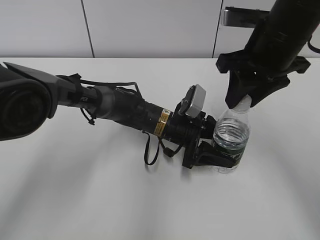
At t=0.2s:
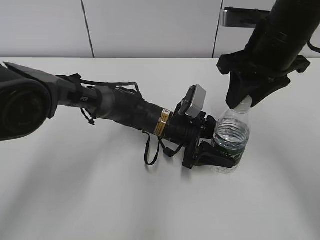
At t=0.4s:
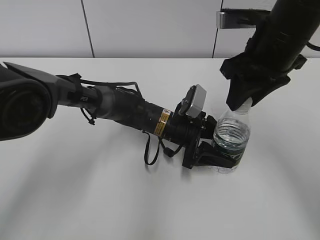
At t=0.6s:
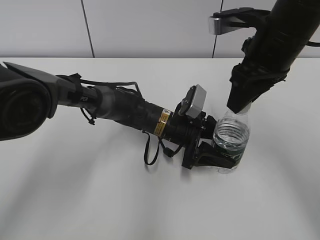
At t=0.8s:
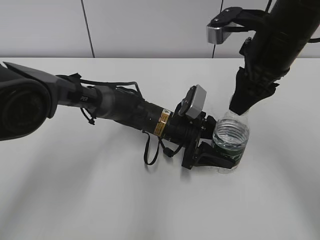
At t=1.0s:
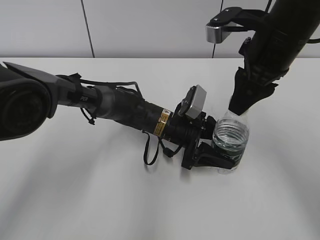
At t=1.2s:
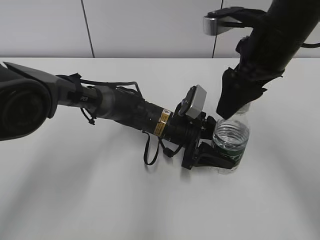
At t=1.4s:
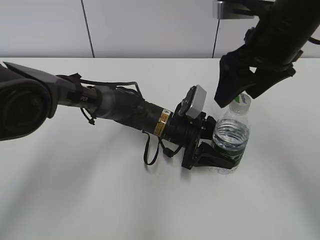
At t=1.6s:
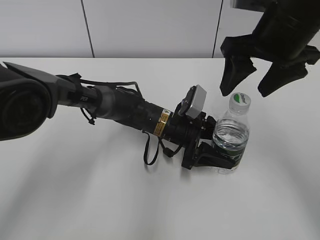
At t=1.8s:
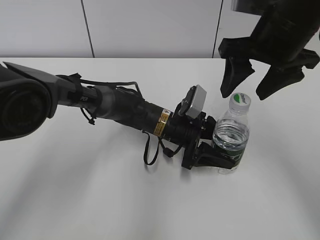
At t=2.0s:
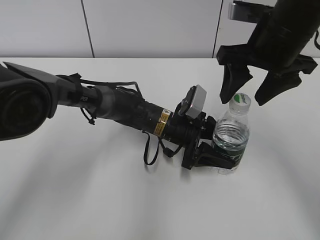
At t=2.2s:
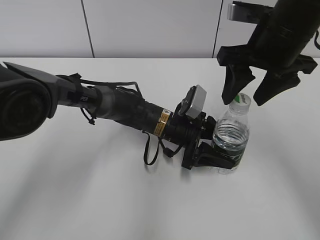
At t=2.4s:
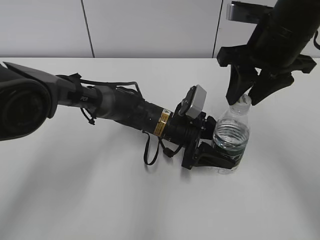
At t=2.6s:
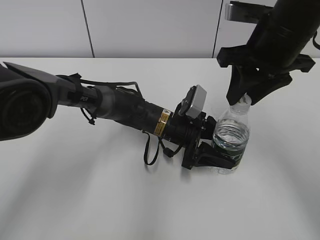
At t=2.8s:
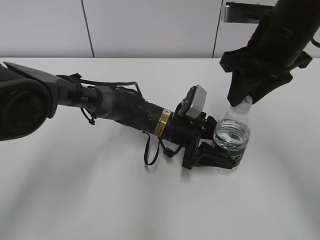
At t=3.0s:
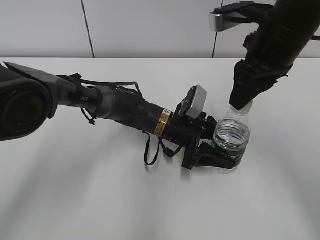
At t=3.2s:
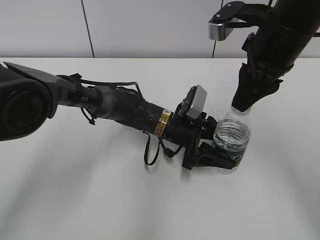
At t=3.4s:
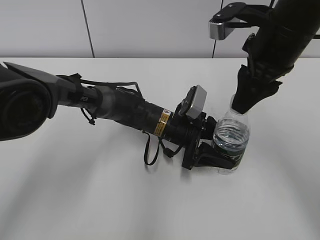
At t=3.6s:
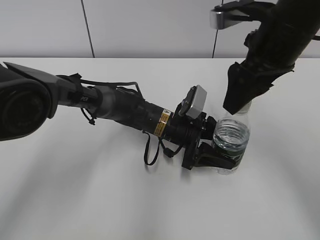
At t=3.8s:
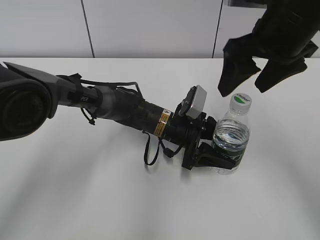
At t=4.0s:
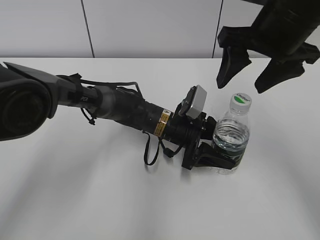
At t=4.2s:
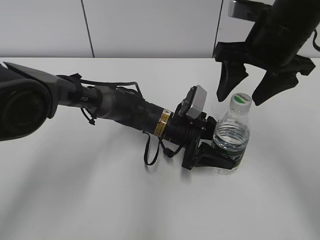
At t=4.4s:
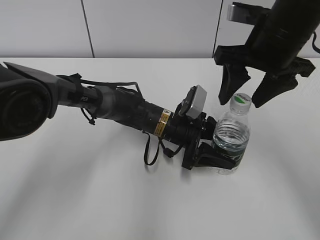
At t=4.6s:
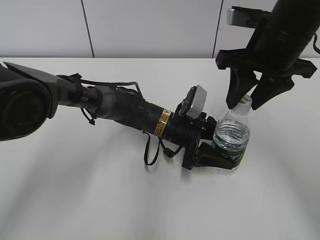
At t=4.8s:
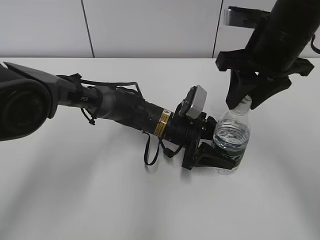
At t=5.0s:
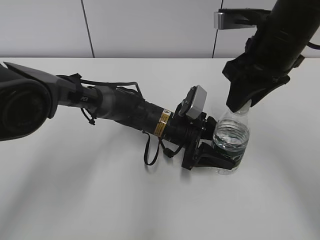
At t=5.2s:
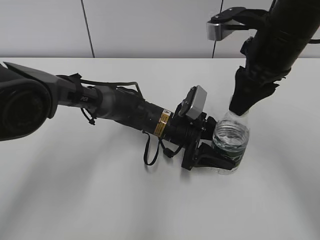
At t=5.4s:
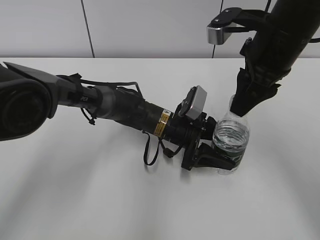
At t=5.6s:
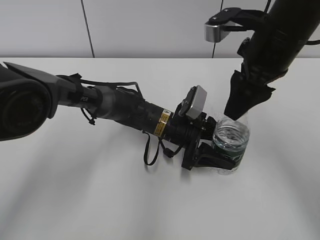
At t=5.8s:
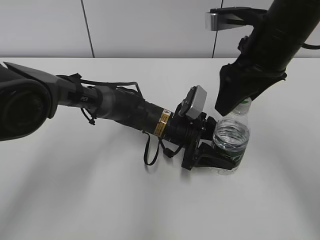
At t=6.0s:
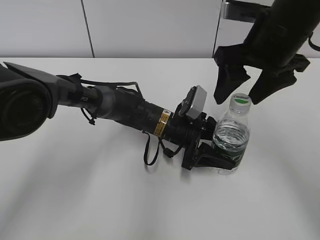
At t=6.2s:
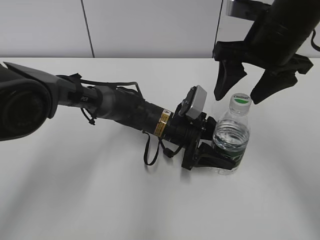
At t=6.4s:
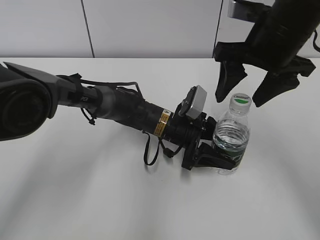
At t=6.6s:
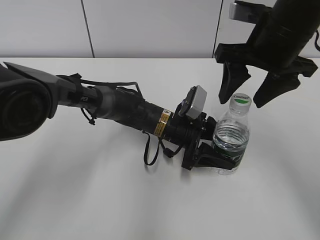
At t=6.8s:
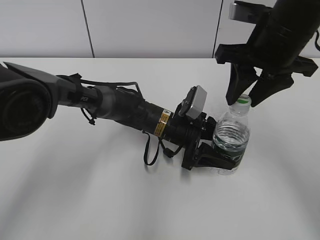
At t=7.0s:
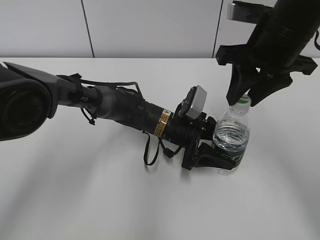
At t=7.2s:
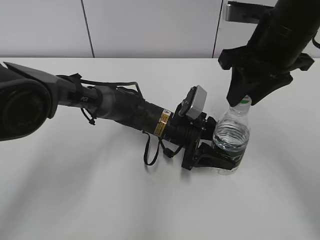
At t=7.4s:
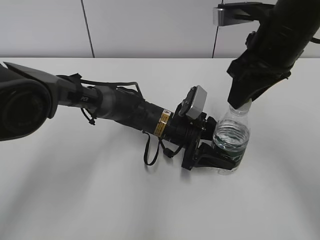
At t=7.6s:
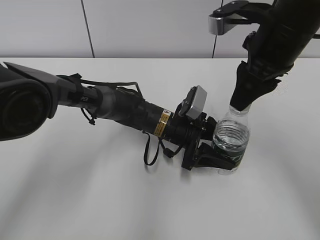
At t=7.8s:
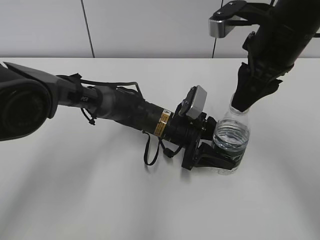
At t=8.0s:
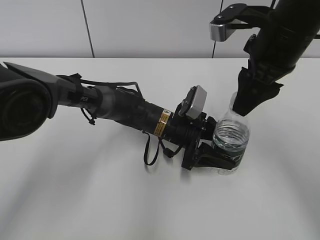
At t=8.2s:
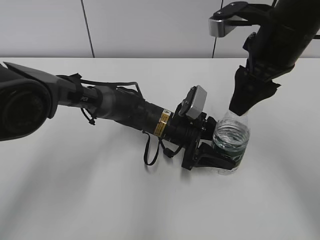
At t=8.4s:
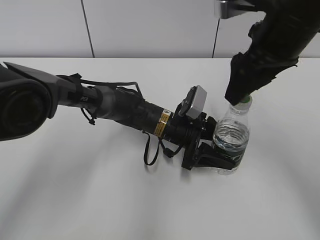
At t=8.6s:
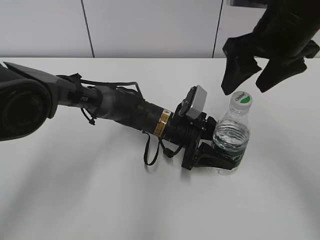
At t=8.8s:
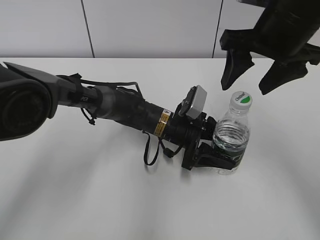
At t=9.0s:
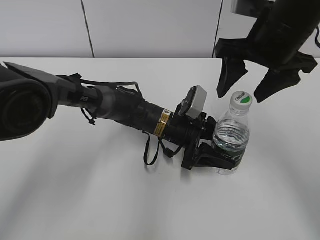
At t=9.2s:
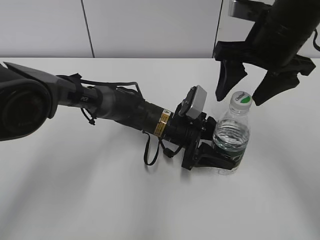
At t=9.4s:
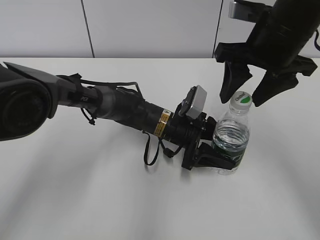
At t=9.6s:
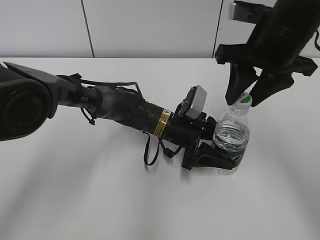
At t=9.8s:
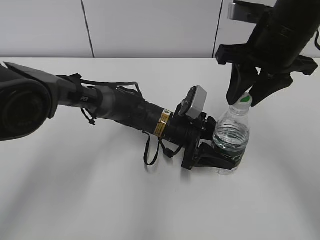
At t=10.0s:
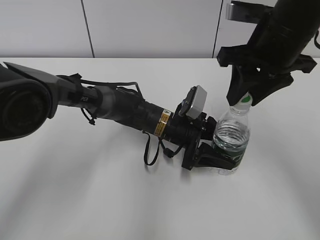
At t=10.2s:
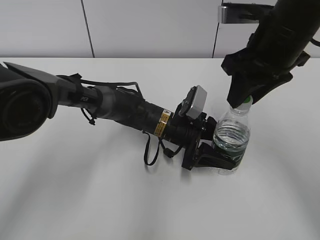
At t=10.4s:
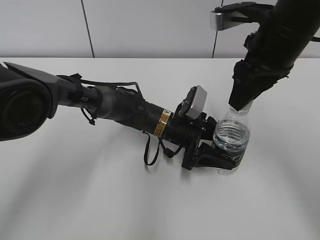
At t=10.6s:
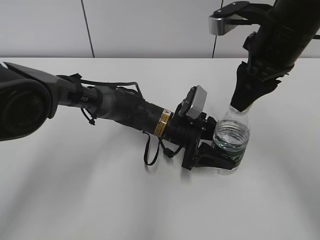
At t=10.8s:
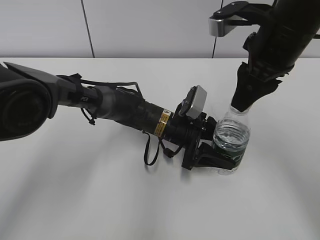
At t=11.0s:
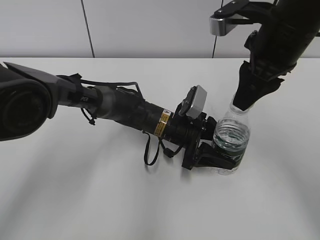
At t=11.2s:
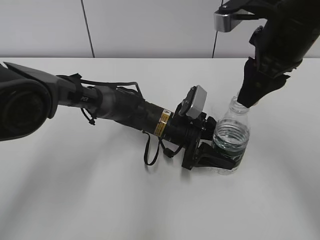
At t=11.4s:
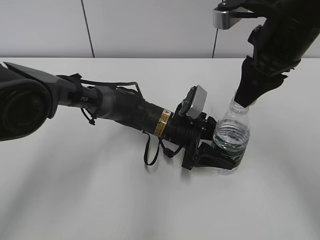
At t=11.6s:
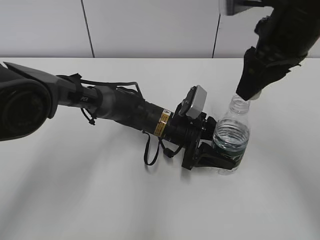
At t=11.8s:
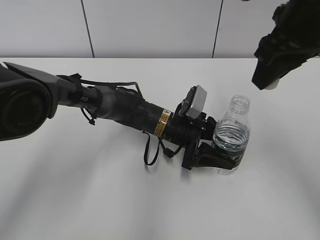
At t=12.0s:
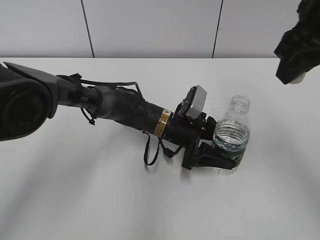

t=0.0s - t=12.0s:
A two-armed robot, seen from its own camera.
Step, t=0.0s - t=11.0s: Twist the bottle cap with the right hand.
t=0.0s - t=1.6s: The right gripper opens up.
t=1.6s - t=3.0s: The right gripper closes up.
t=3.0s - t=4.4s: The right gripper opens up.
t=4.4s - t=6.0s: The right gripper closes and opens again.
t=6.0s - t=7.6s: The right gripper closes its fingers.
t=7.6s - t=9.0s: The right gripper opens up.
t=9.0s - t=10.4s: The right gripper closes its fingers.
t=10.4s - t=12.0s: The right gripper moves upward, roughly 5 cm.

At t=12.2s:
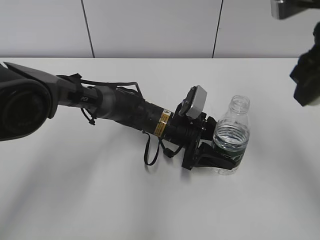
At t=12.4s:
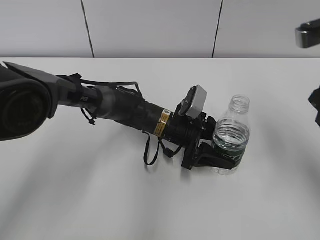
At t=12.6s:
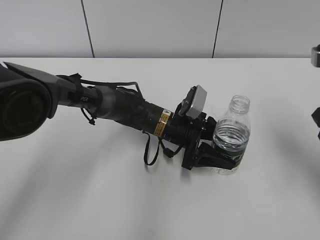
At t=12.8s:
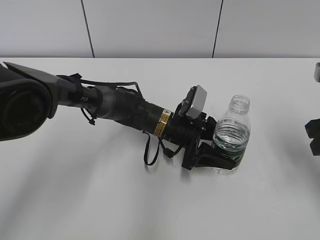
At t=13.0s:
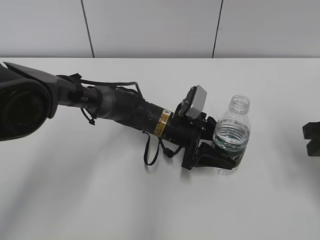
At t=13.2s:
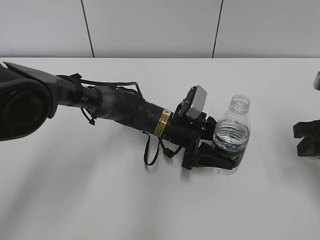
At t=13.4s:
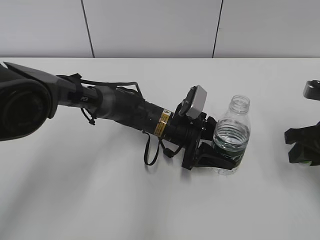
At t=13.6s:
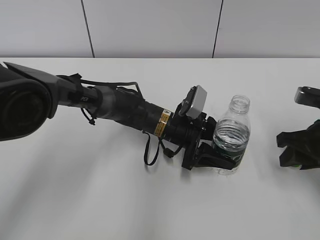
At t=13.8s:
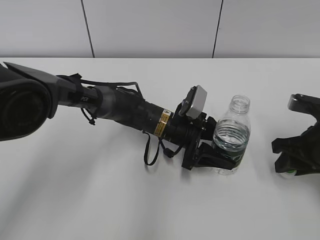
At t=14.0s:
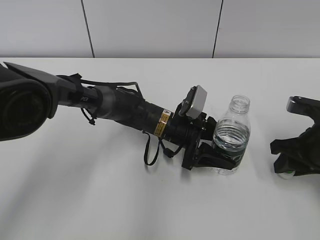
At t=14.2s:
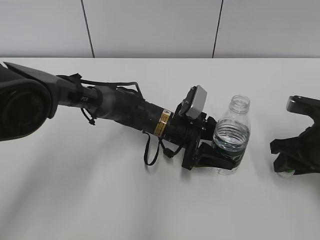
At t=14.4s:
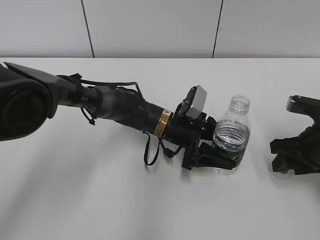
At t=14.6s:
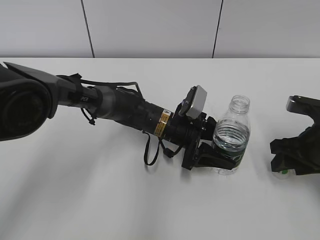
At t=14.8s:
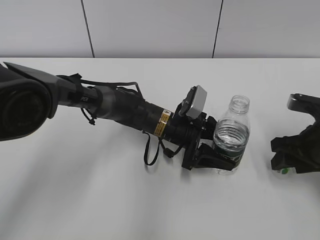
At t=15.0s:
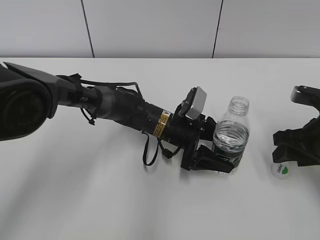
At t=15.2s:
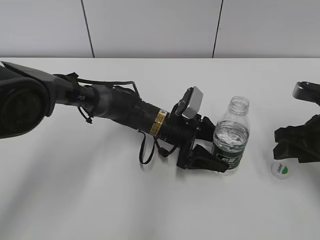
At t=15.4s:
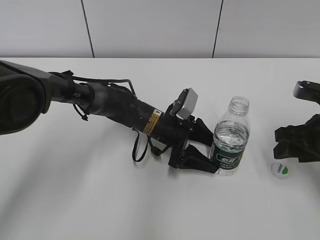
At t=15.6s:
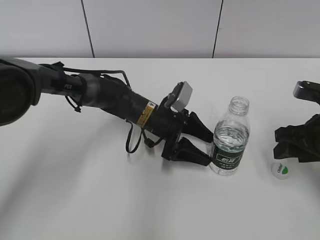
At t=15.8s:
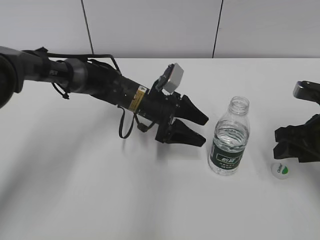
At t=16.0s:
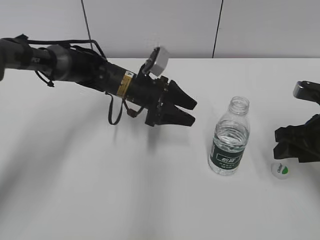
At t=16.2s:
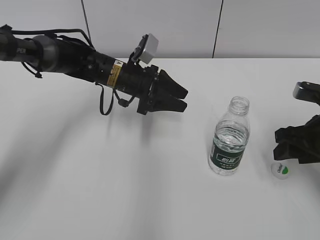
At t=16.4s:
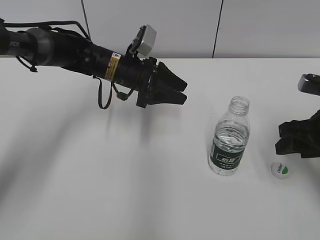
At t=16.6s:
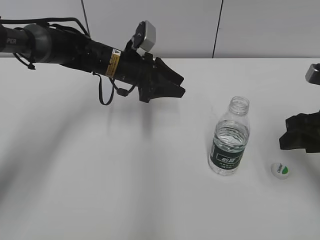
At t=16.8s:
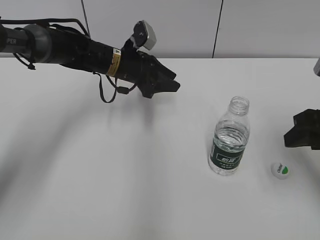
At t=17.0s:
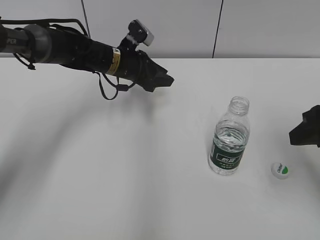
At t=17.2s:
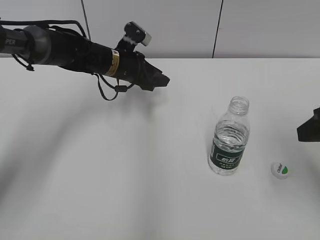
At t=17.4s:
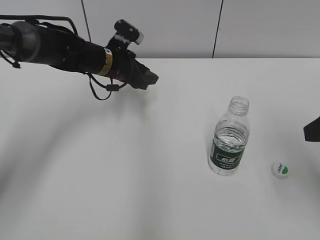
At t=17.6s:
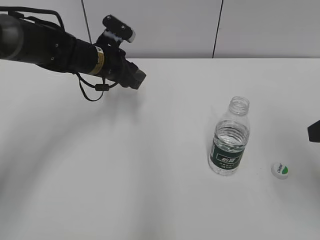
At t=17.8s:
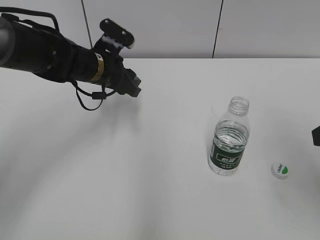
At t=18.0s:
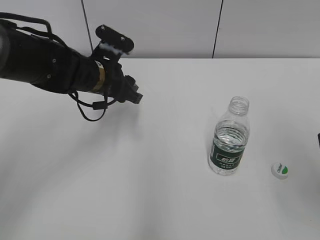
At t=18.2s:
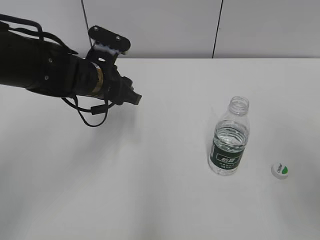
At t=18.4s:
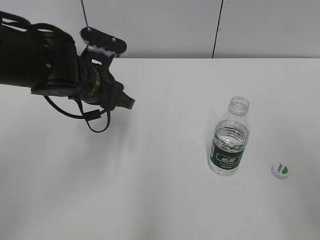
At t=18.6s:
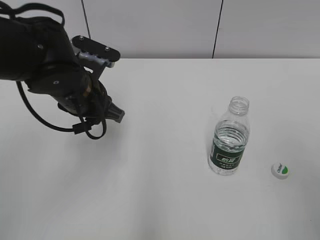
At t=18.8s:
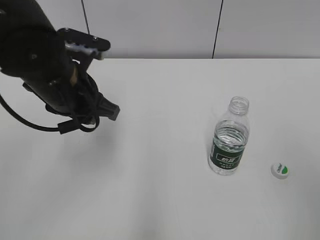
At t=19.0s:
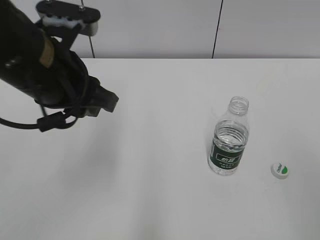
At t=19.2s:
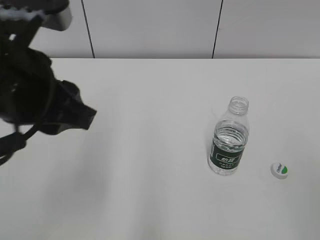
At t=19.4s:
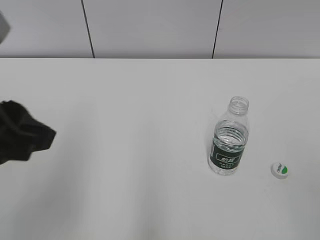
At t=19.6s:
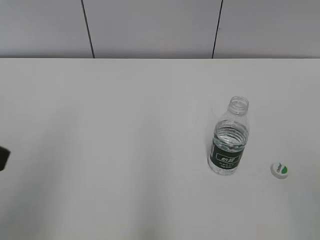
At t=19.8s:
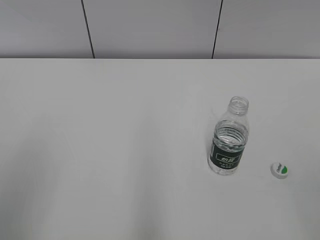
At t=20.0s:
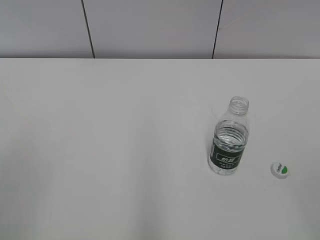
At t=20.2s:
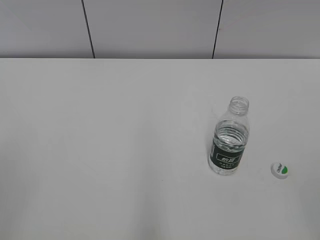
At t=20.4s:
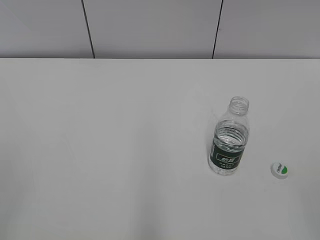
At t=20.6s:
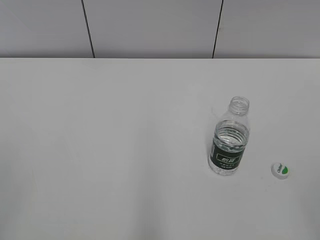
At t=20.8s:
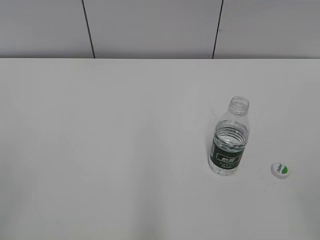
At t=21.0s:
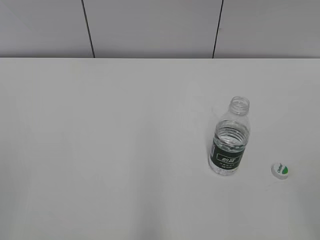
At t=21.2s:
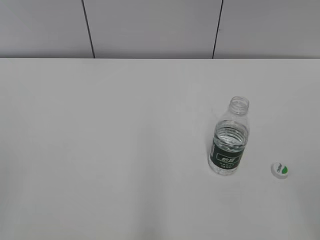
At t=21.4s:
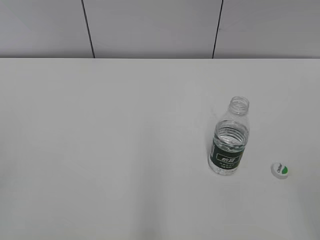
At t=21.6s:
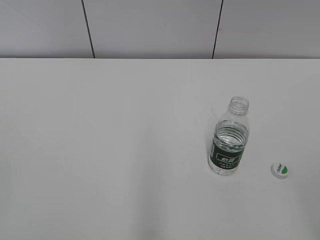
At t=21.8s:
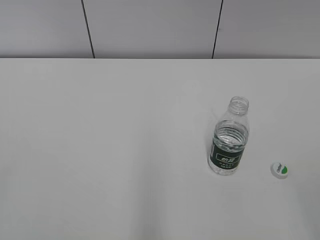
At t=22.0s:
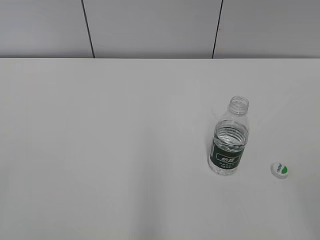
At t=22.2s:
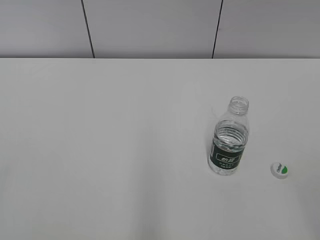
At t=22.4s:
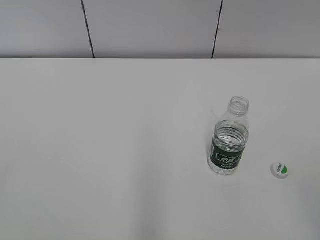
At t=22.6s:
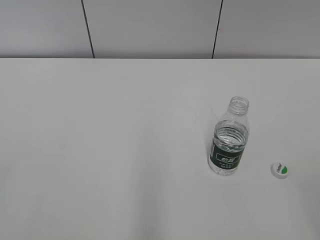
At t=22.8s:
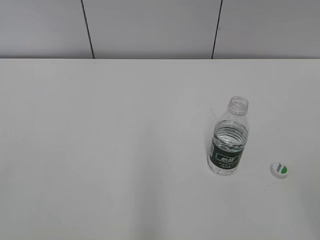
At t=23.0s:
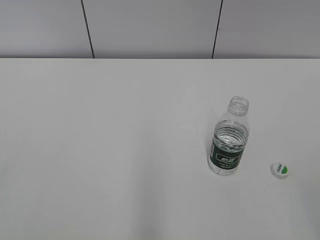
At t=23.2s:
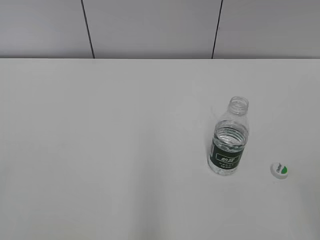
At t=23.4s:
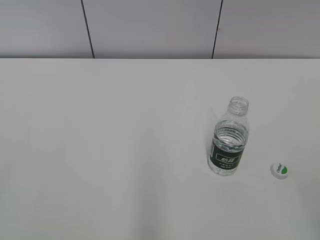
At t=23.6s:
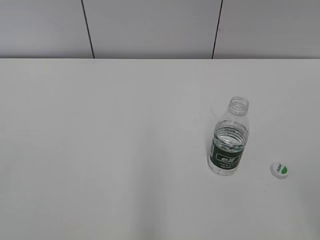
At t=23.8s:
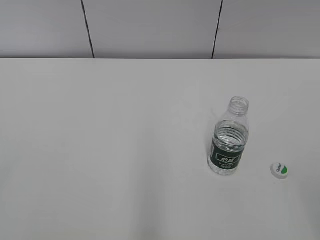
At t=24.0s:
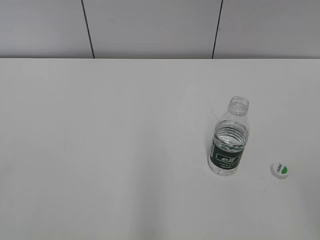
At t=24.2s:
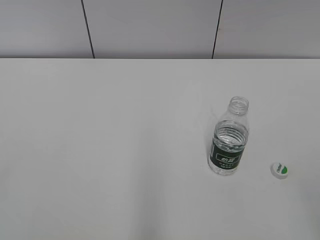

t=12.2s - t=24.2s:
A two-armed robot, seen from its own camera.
Step, t=12.2s - t=15.0s: Place the bottle cap on the table with the right hand.
Step, t=15.4s - t=15.6s: Place the C'estbon with the left hand.
t=12.2s - t=13.8s: The right gripper goes about 20 cm downward.
t=13.8s - t=15.2s: The right gripper opens its fingers.
t=15.2s - t=16.6s: The left gripper heads upward, to the left and forward, covering about 15 cm, and closes.
t=16.6s - t=18.2s: The right gripper is displaced upward and backward by approximately 15 cm. The left gripper is displaced backward by roughly 10 cm.
t=18.2s - t=19.8s: The left gripper travels backward, to the left and upward by approximately 35 cm. Meanwhile the right gripper heads backward, covering roughly 15 cm.
t=19.8s - t=21.2s: The left gripper shifts about 10 cm to the left and backward.
